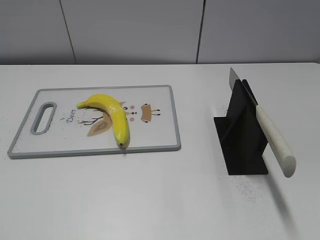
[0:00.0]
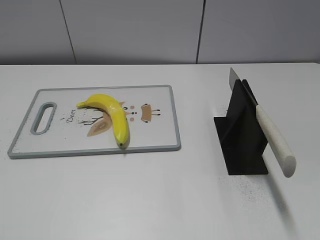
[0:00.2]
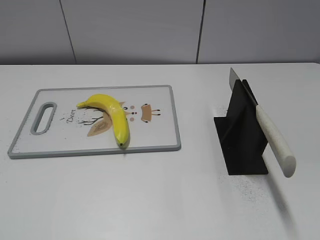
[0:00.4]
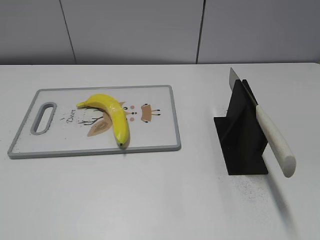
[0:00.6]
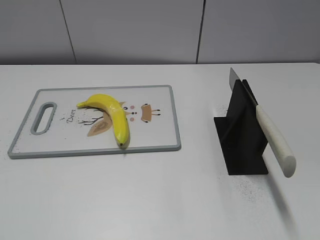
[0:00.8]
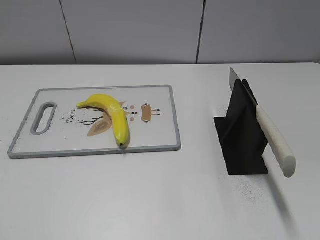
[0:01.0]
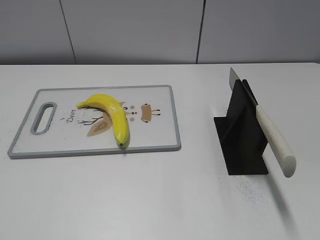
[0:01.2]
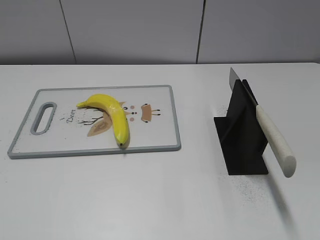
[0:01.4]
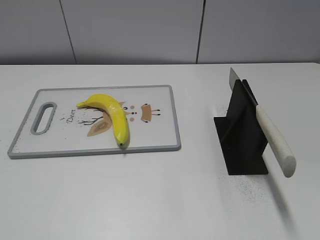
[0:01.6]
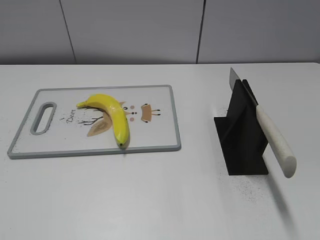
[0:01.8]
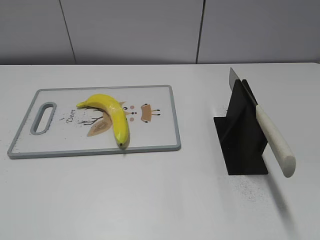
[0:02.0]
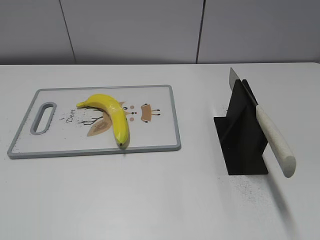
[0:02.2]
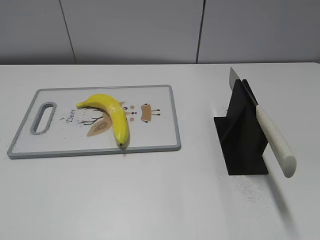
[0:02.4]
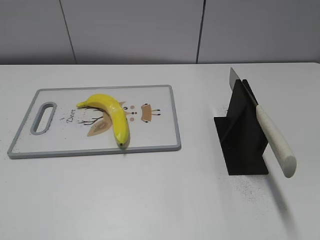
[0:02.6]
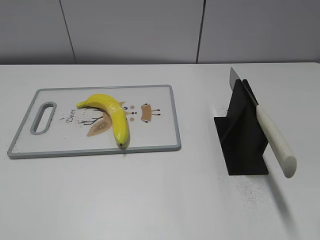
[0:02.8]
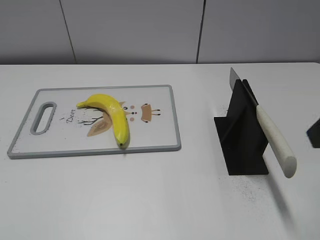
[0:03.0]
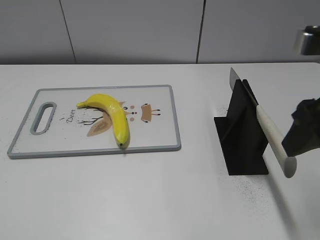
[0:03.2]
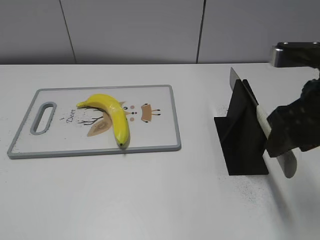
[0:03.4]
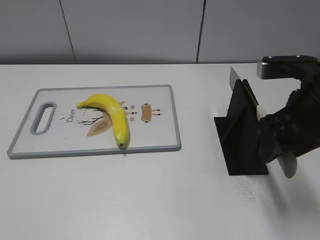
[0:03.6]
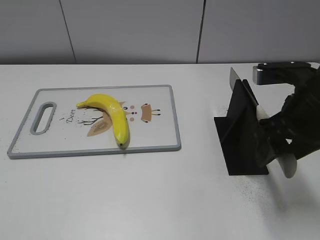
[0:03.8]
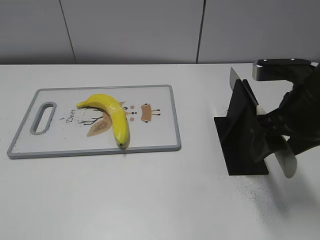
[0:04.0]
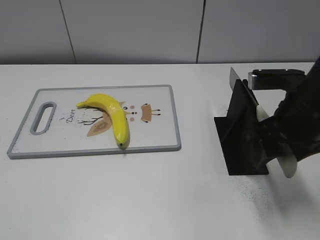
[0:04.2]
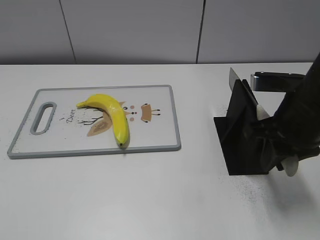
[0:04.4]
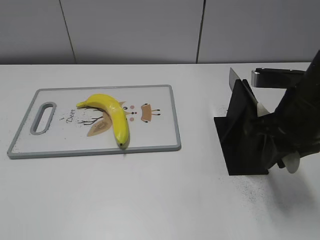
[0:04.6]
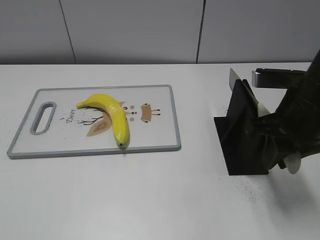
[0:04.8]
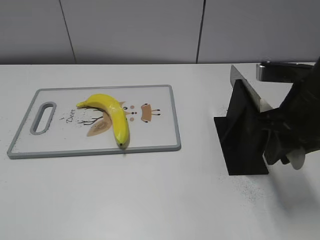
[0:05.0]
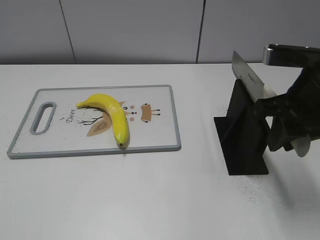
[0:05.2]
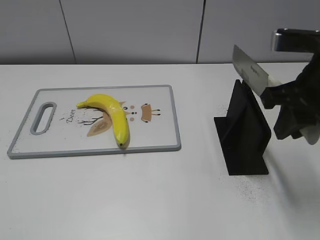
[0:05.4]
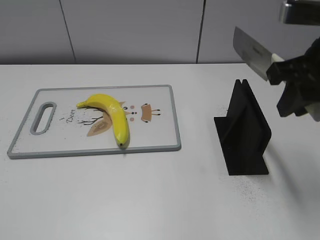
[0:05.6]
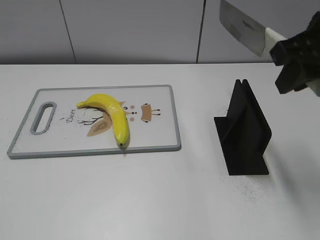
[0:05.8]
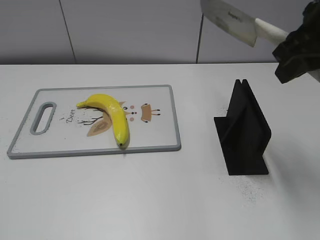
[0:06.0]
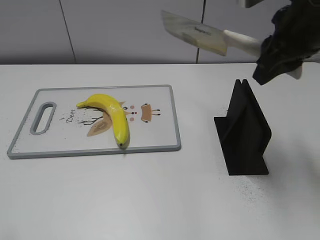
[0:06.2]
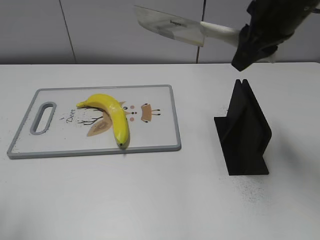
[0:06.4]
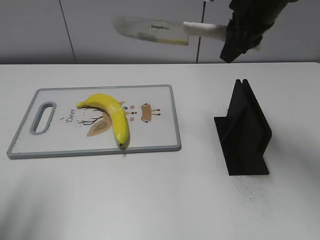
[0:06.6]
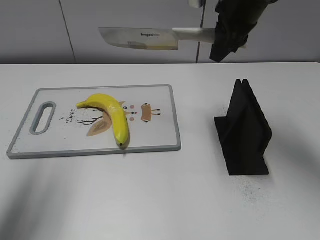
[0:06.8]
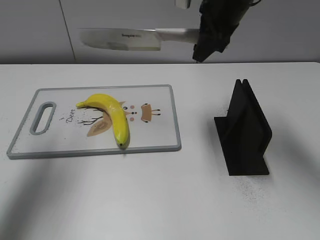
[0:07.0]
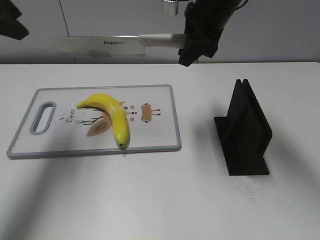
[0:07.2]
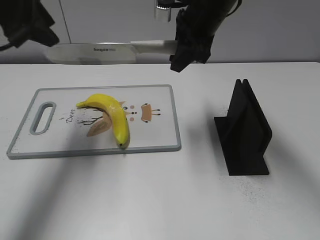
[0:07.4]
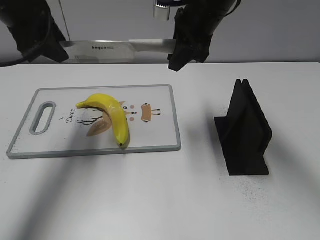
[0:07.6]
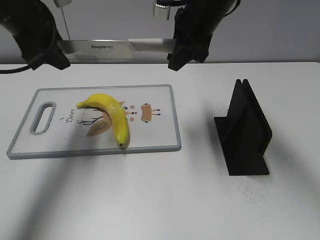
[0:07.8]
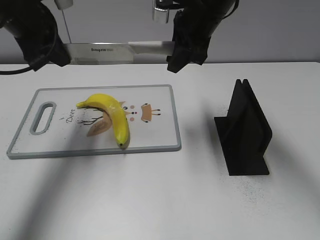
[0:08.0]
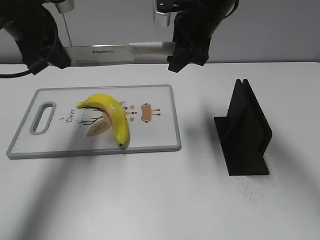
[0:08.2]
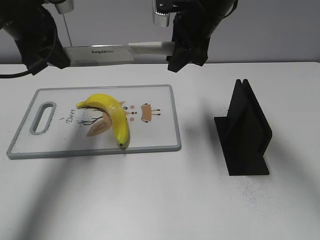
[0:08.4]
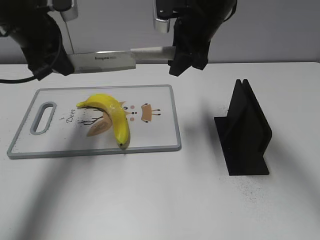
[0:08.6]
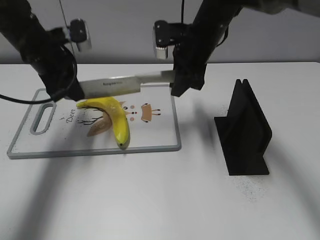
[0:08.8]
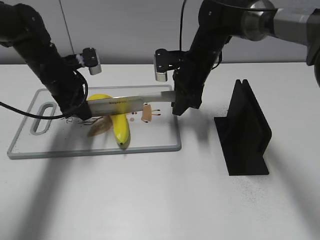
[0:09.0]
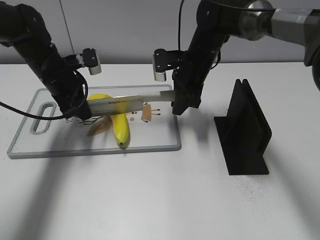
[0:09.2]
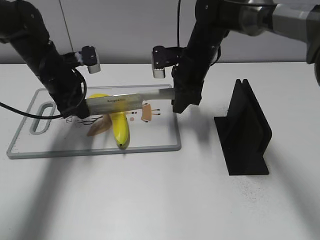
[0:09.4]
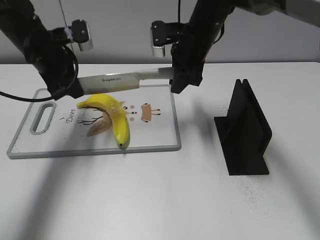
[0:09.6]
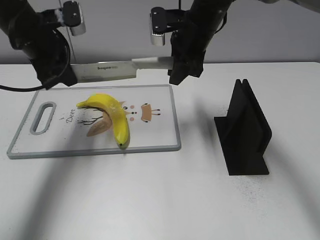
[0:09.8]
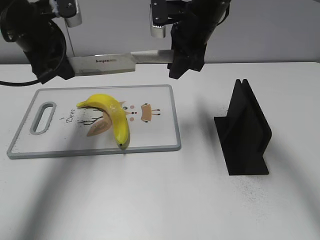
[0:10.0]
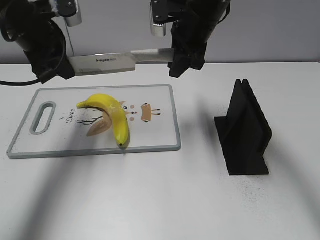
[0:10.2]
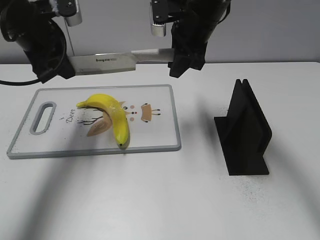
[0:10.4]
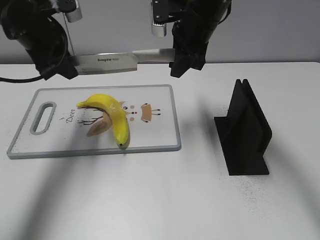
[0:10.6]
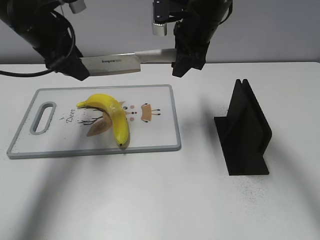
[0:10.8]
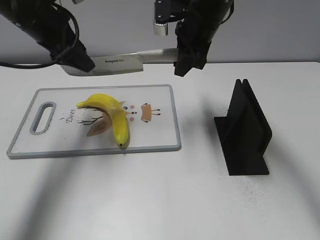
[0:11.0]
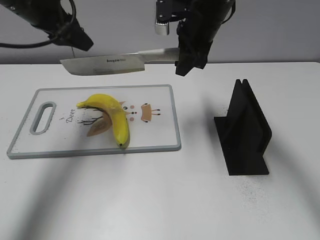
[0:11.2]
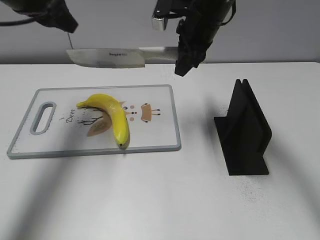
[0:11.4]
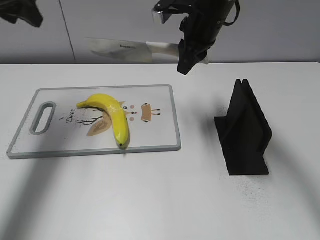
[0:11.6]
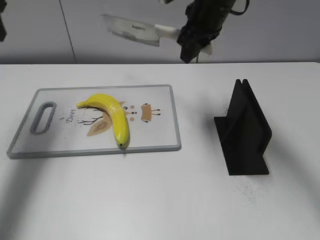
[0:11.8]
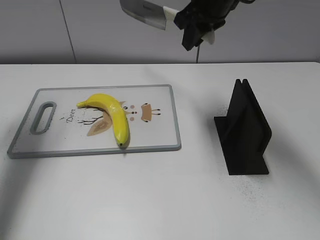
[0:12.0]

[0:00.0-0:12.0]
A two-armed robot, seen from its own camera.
Task of the whole recording: cut plastic banana.
Step, 0:00.0 to 0:05.4: Grab the knife handle with your right hand.
Step, 0:05.6 to 0:09.8: Lift the knife with your right hand.
0:03.0 to 0:04.4: The right gripper shifts roughly 15 cm downward and forward, and closes up.
0:04.4 to 0:06.0: The right gripper is displaced upward by some 10 cm.
0:06.0 to 0:07.6: The left gripper shifts some 35 cm forward, while the right gripper travels forward and to the left by about 20 cm.
0:07.6 to 0:09.0: The two grippers go approximately 15 cm downward. The left gripper closes.
0:09.0 to 0:10.4: Both grippers travel together upward, some 10 cm.
0:10.4 to 0:12.0: The right gripper is displaced upward by about 5 cm, while the left gripper shifts about 15 cm to the left and upward, and opens up.

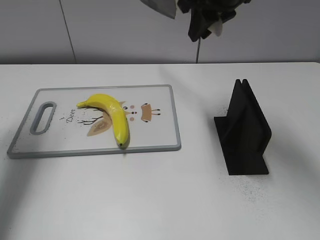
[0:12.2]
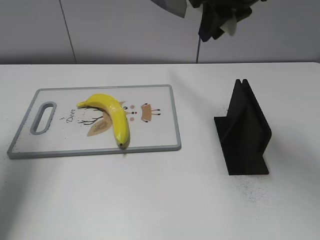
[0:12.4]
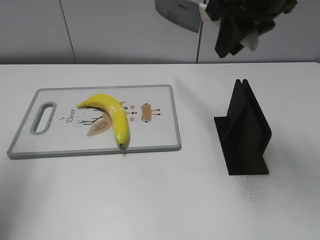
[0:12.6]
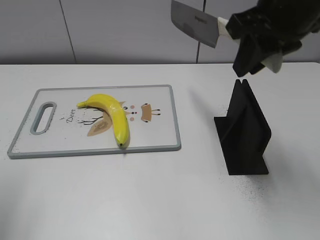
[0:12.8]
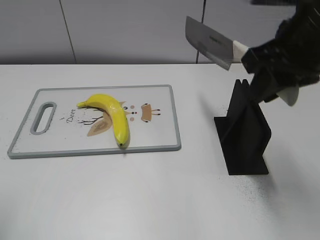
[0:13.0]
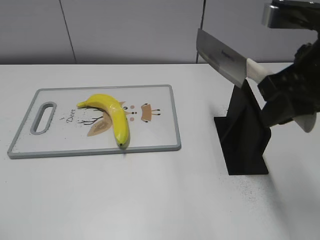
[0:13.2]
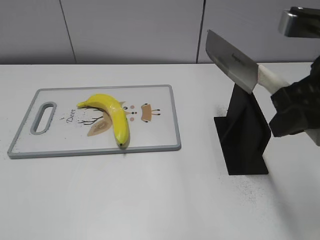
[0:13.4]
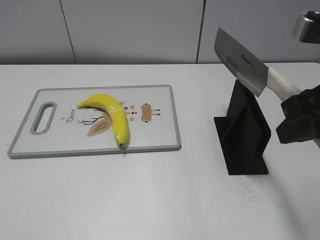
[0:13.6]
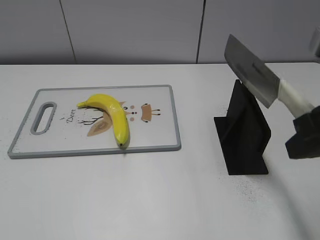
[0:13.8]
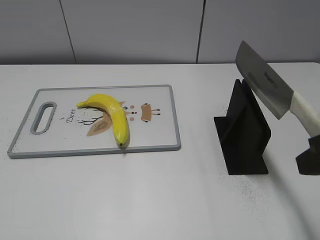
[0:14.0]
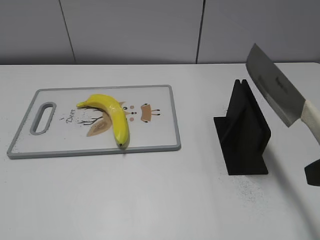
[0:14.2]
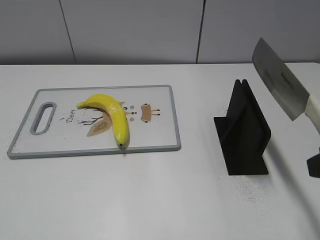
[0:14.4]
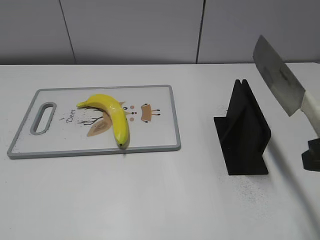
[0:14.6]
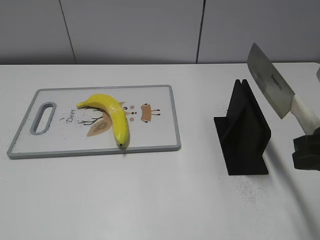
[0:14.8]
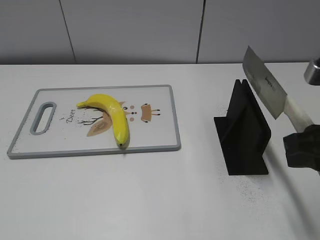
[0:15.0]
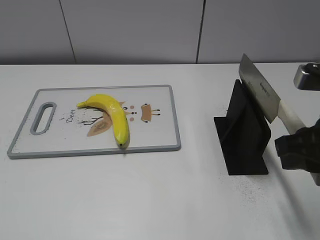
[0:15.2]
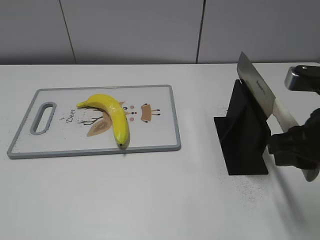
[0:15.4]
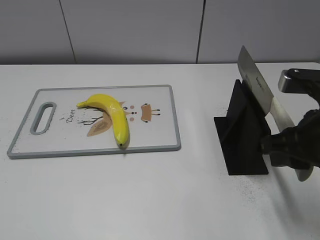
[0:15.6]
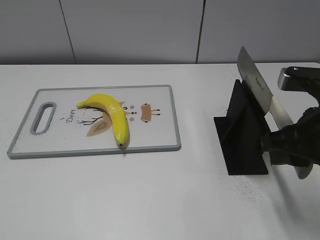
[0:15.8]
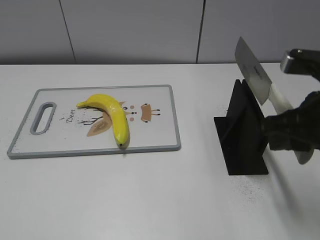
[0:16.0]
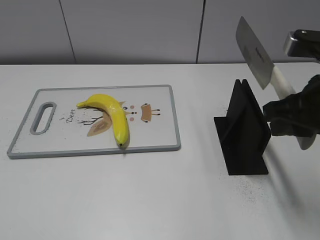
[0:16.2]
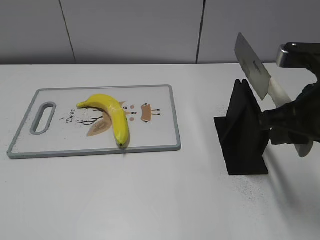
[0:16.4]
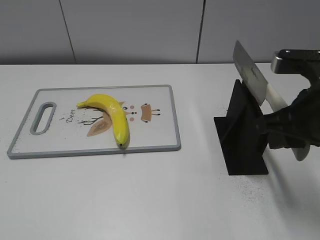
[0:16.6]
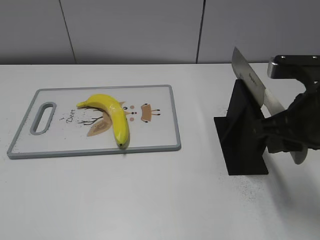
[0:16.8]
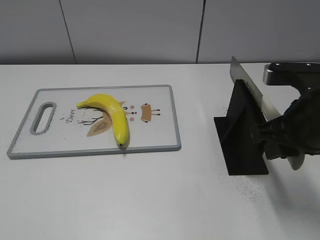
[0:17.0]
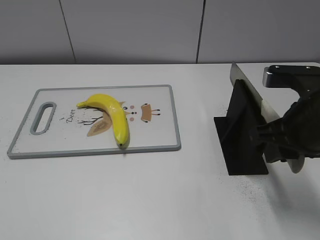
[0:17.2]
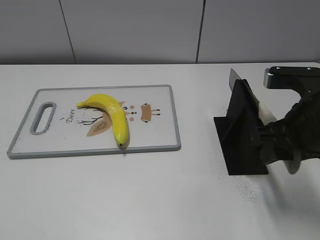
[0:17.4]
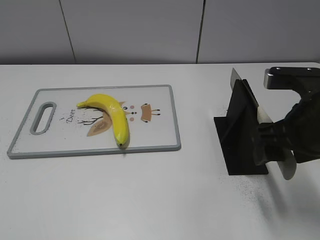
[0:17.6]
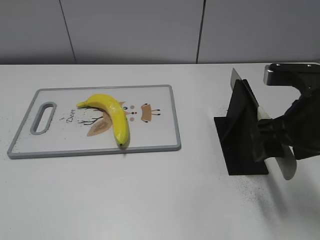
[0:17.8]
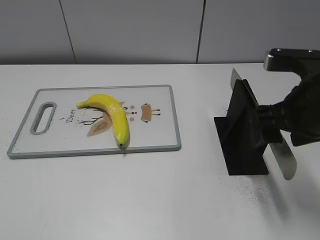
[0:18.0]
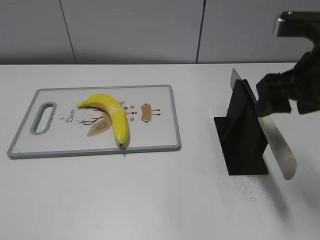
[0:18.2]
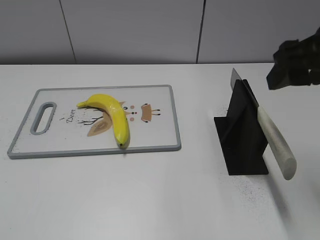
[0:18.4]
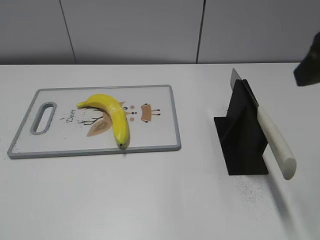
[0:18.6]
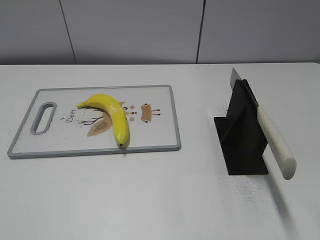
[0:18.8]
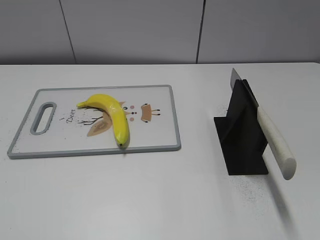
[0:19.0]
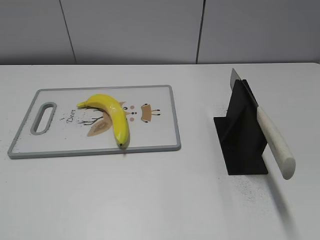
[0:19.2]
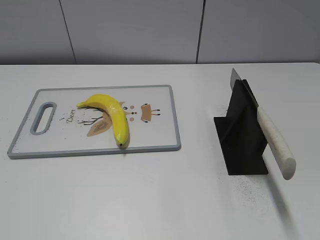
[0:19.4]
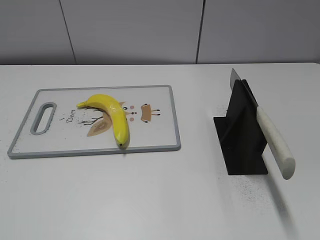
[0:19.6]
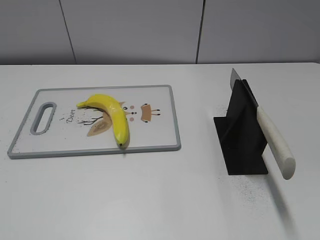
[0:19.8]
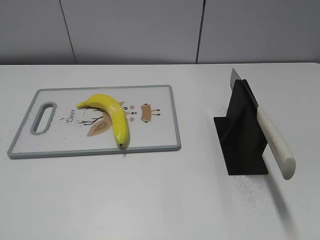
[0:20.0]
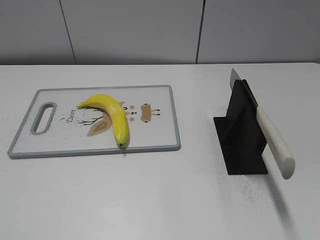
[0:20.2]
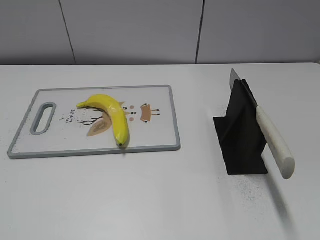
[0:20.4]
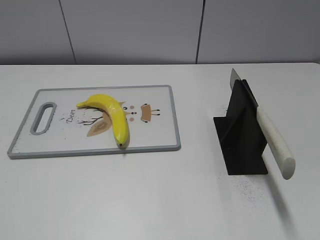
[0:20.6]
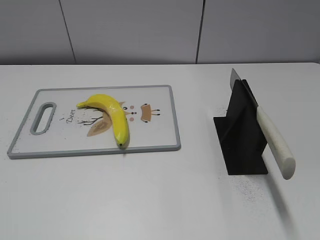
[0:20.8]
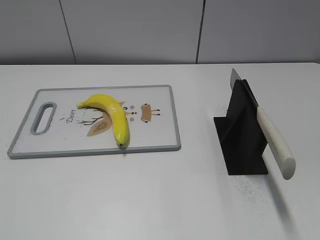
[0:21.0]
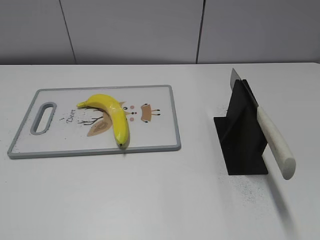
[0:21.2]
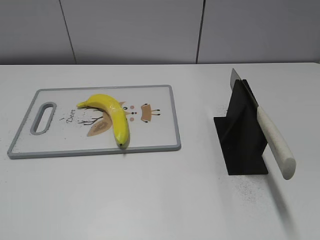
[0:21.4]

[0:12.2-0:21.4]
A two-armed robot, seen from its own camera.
Task of the whole recording: cut plastic banana.
Step, 0:12.6 to 0:21.4: Place the knife on the storage rack with your right hand.
0:12.2 to 0:13.8: The right gripper shifts about 25 cm backward and to the right; the left gripper shifts approximately 35 cm backward.
0:13.8 to 0:15.2: The right gripper heads downward, covering about 5 cm.
0:15.2 to 0:16.8: There are only small adjustments of the grippers.
0:16.8 to 0:18.4: The right gripper goes roughly 10 cm upward, and opens.
0:18.4 to 0:19.8: The right gripper goes some 25 cm backward.
